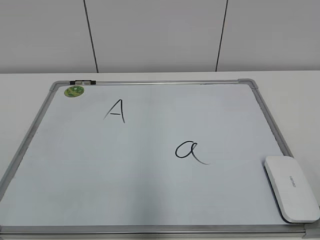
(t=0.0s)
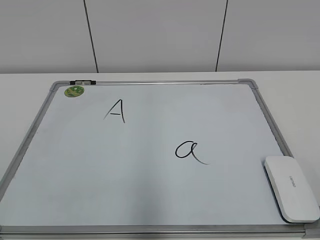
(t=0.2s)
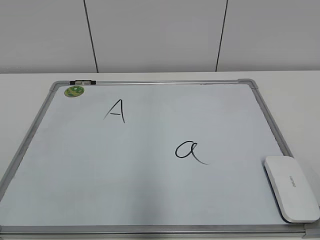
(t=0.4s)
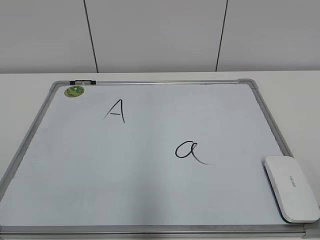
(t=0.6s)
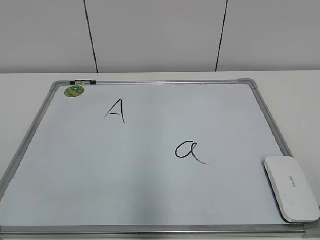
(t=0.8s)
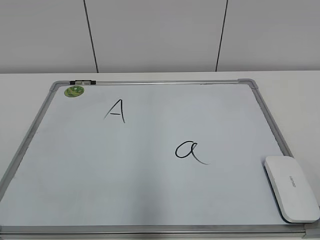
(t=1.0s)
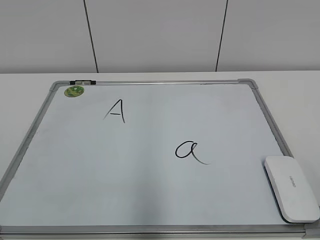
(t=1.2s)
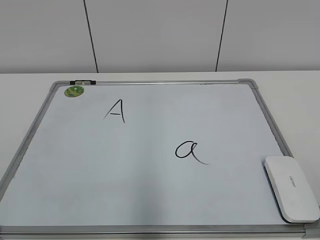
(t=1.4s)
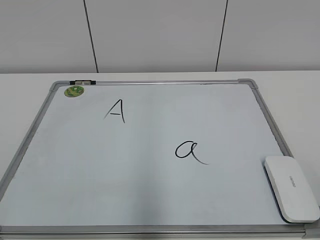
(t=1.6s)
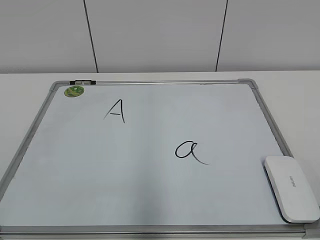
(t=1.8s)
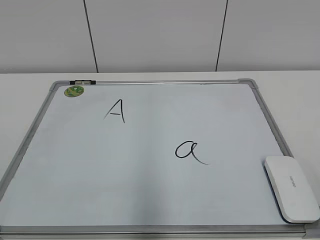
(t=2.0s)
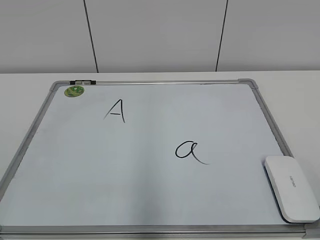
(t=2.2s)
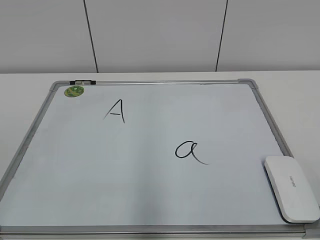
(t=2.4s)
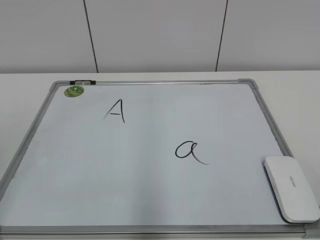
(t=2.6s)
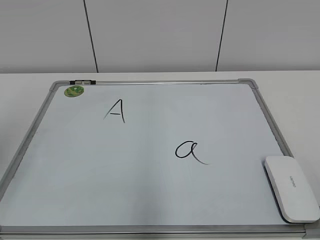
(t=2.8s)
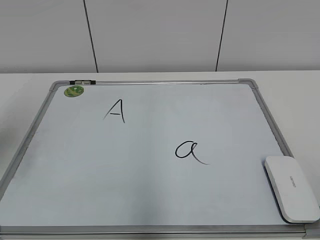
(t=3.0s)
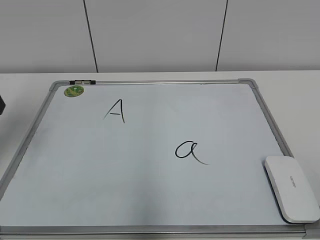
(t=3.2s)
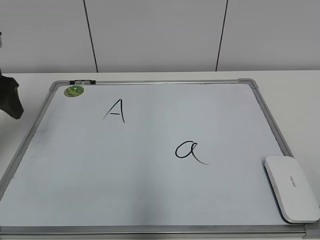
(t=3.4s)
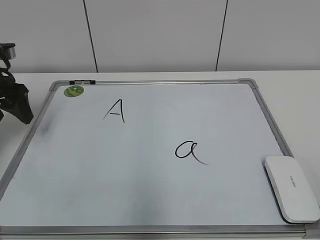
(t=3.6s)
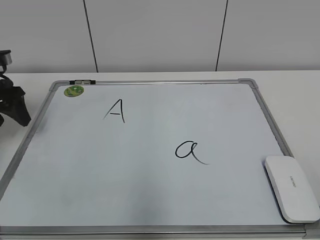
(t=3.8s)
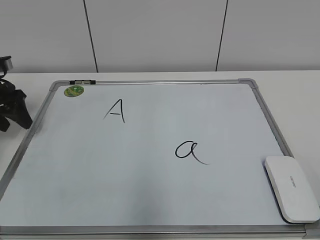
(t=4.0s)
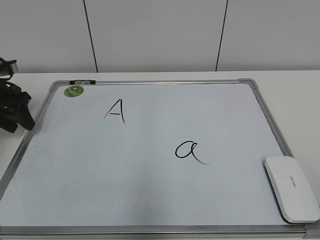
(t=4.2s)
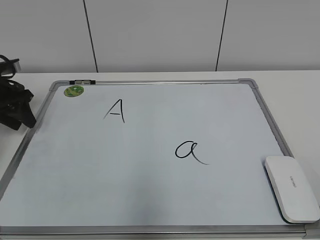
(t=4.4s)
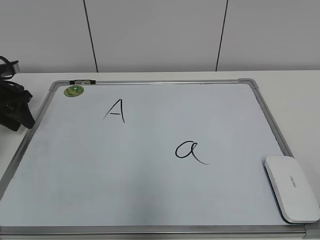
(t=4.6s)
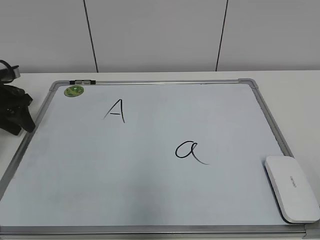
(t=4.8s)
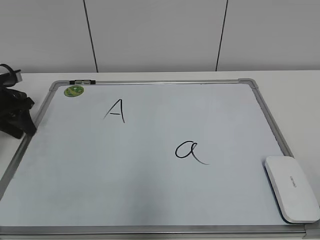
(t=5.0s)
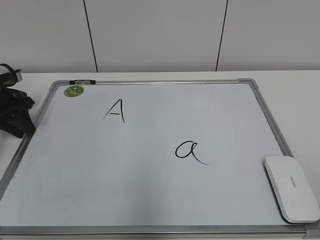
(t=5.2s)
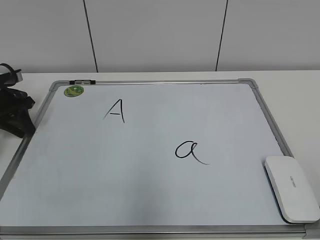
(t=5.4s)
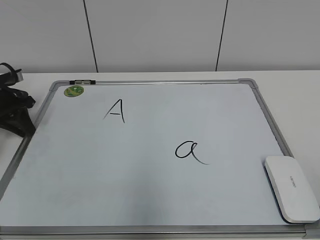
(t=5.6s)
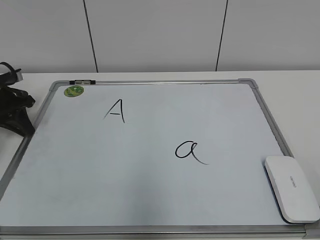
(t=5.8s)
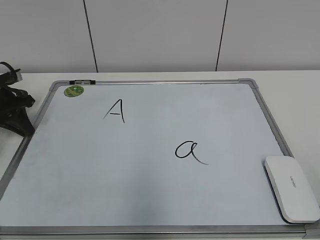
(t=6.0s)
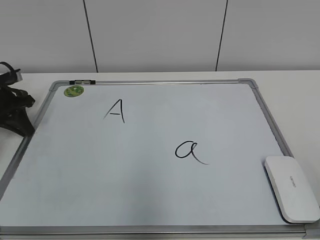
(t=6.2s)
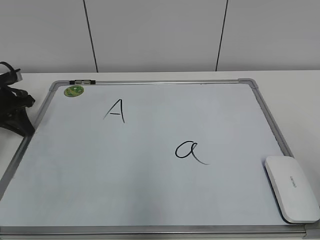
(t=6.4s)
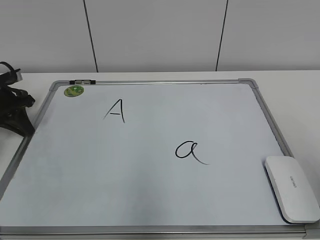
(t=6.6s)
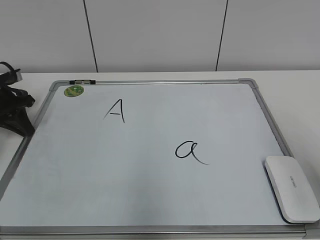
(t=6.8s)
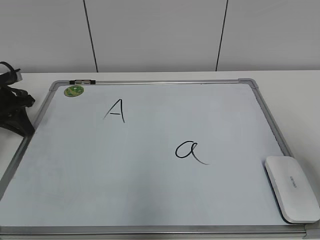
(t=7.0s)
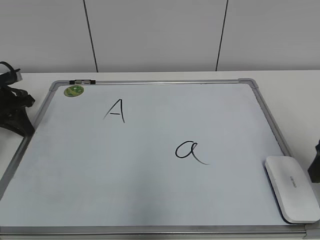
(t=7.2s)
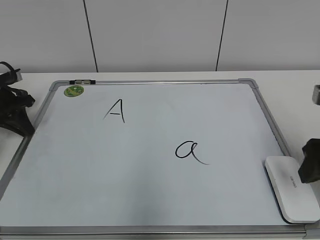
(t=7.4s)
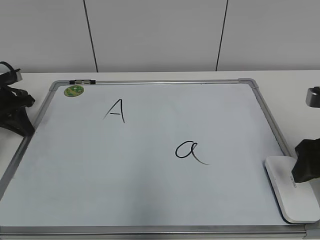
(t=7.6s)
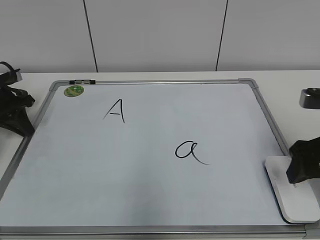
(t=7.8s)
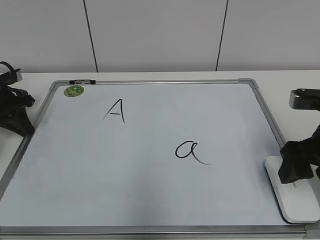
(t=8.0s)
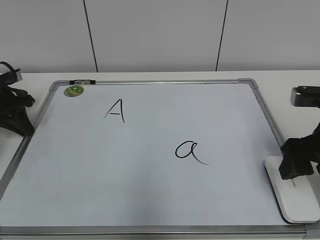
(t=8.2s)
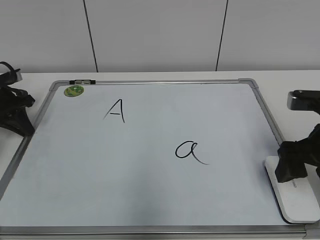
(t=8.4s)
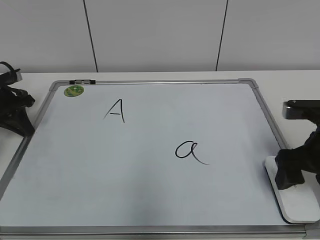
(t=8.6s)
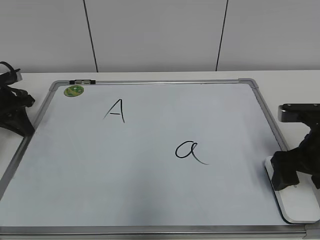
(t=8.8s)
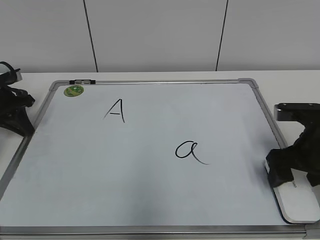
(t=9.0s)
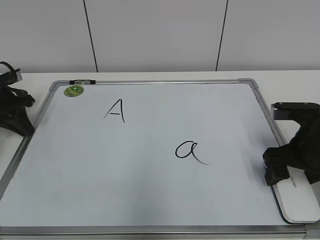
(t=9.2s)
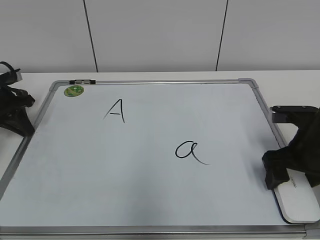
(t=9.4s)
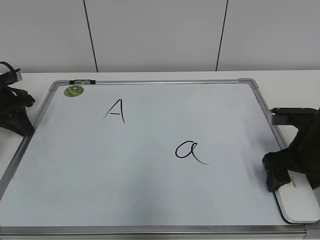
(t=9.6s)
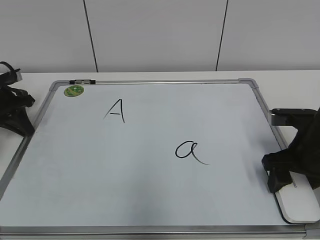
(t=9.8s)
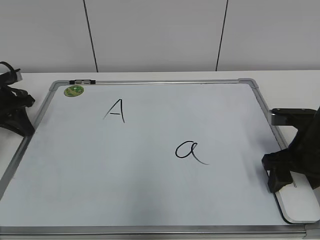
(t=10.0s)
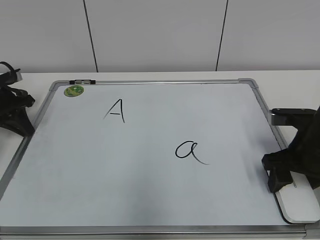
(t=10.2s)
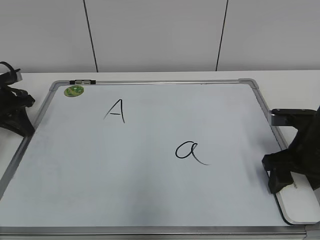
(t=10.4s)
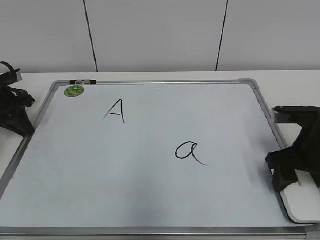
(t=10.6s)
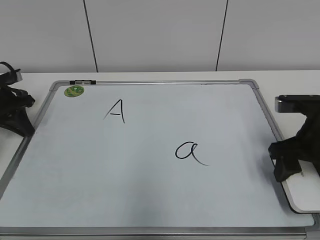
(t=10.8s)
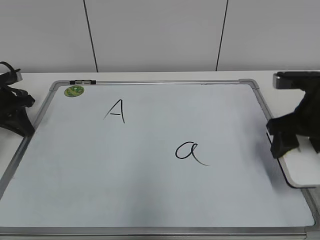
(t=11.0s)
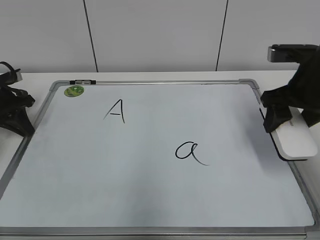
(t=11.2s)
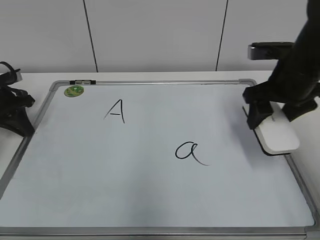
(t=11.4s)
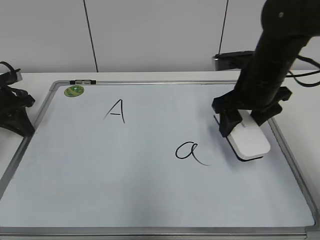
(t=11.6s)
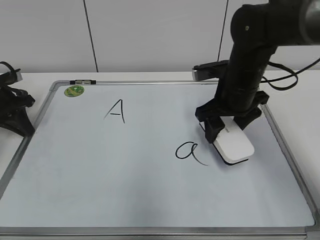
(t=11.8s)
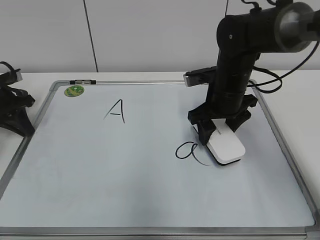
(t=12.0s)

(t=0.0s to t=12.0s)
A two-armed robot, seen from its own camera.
Task of the whole recording: pick up the eraser on the blackboard and erase the letter "a".
Step, t=0.0s - t=6.0s: Hold the drawing board steady with your left hand.
Step, t=6.2s - t=10.2s: Grab the eraser with your right hand.
t=1.6s - t=3.0s: The left gripper moves forward, some 25 cm, and opens its fingers.
t=3.0s - t=4.4s: The left gripper travels forward and downward by roughly 25 cm, and closes.
t=4.4s - t=6.0s: The left gripper closes.
t=6.0s - t=7.6s: The right gripper goes approximately 25 cm forward.
t=7.6s - t=9.0s: The right gripper changes place by about 5 cm, and opens up.
t=9.0s - t=10.4s: The right gripper closes up.
t=10.4s - t=12.0s: The right gripper is displaced to the left and forward by approximately 15 cm.

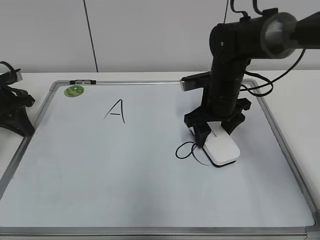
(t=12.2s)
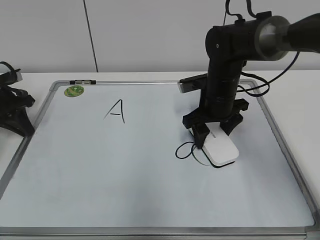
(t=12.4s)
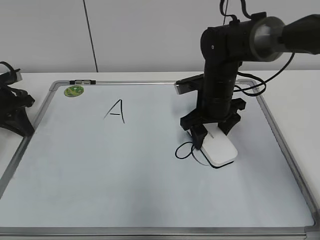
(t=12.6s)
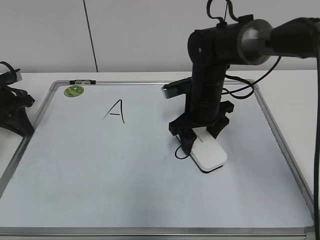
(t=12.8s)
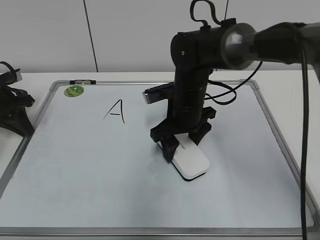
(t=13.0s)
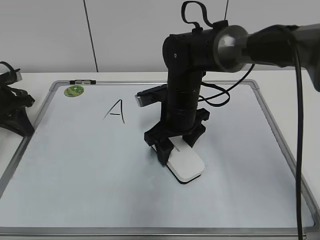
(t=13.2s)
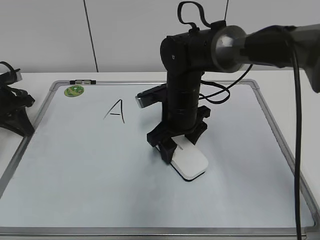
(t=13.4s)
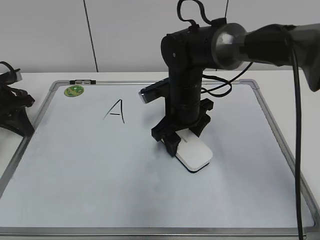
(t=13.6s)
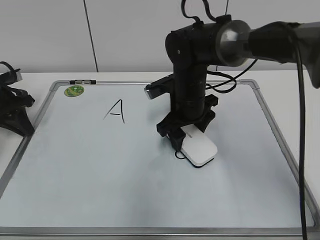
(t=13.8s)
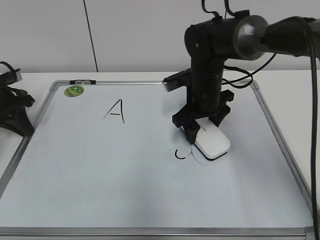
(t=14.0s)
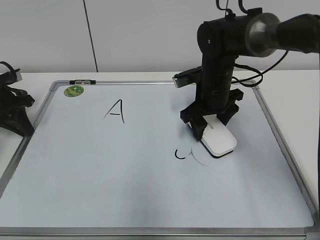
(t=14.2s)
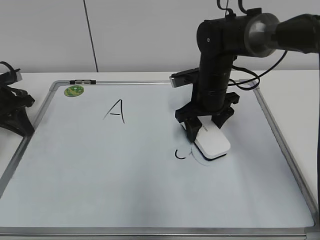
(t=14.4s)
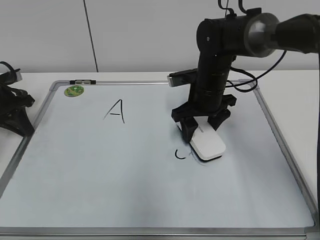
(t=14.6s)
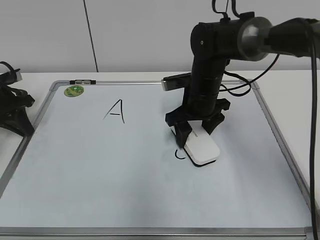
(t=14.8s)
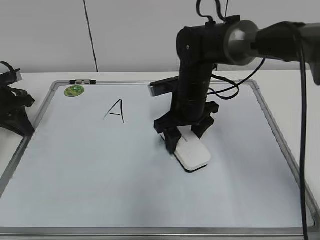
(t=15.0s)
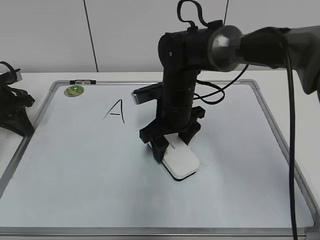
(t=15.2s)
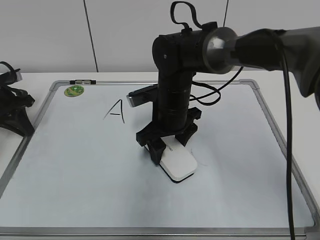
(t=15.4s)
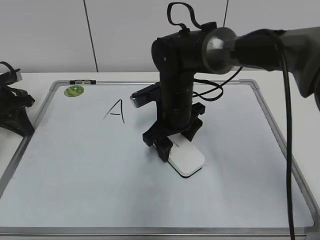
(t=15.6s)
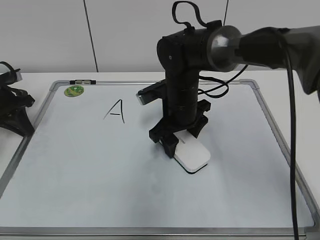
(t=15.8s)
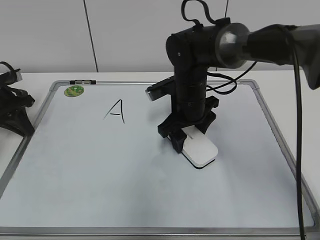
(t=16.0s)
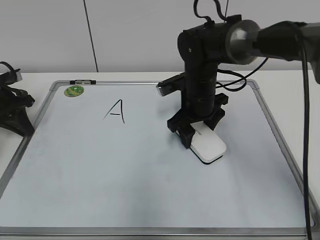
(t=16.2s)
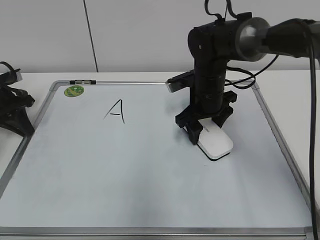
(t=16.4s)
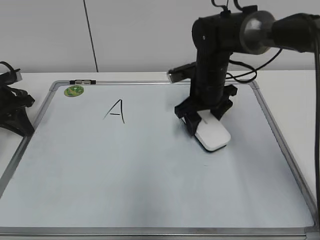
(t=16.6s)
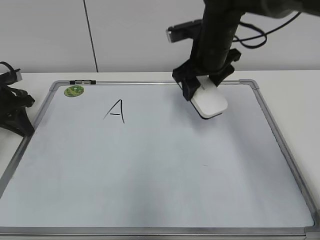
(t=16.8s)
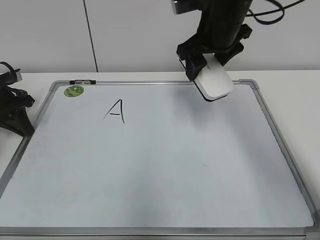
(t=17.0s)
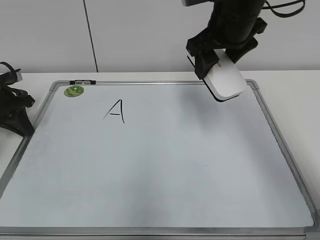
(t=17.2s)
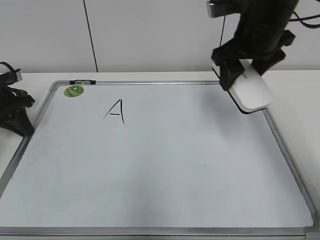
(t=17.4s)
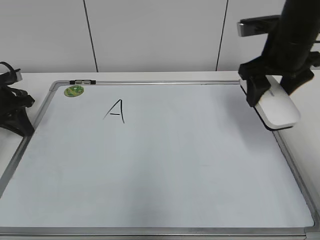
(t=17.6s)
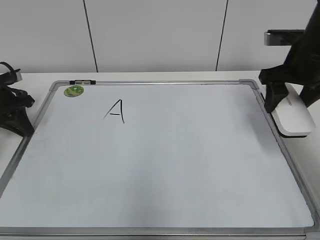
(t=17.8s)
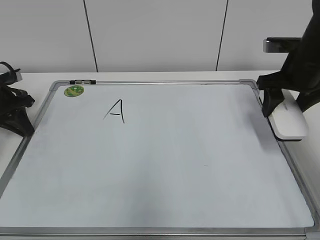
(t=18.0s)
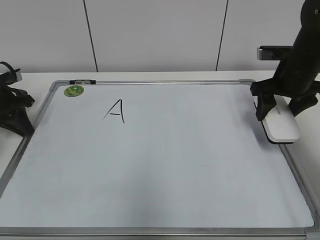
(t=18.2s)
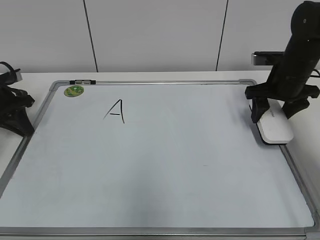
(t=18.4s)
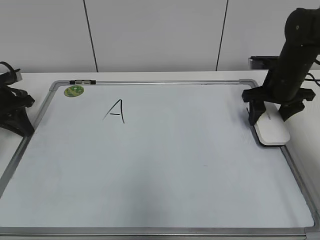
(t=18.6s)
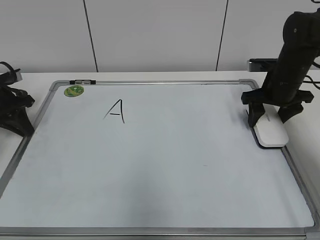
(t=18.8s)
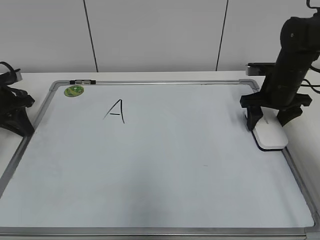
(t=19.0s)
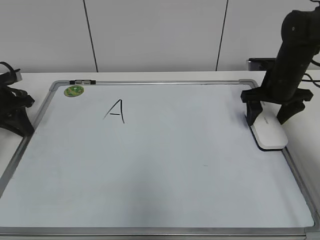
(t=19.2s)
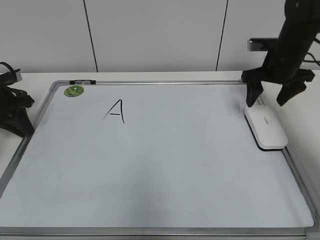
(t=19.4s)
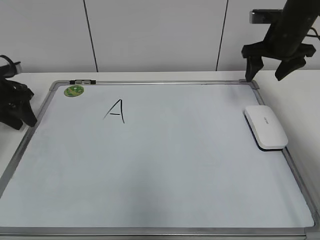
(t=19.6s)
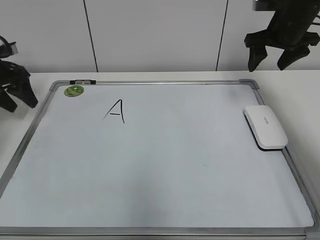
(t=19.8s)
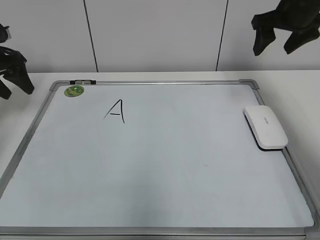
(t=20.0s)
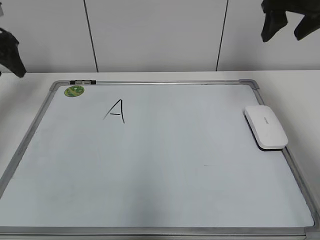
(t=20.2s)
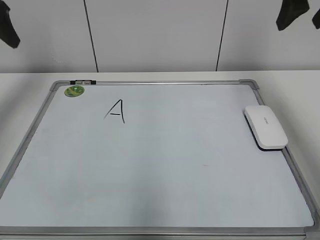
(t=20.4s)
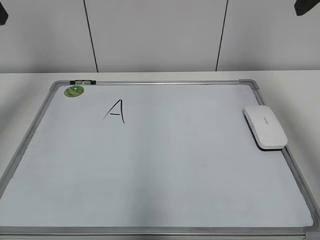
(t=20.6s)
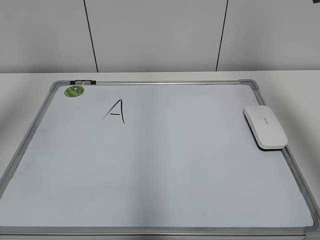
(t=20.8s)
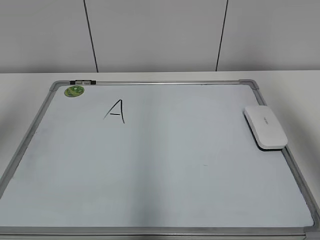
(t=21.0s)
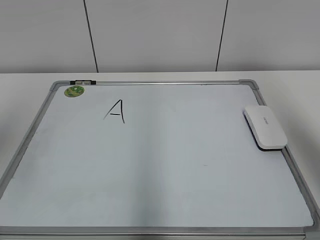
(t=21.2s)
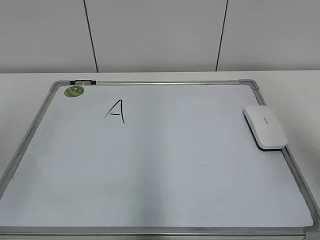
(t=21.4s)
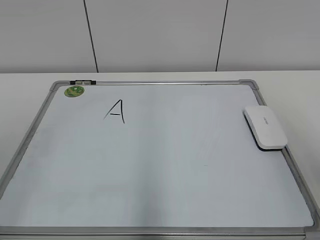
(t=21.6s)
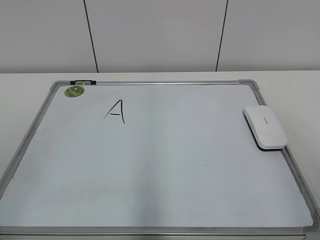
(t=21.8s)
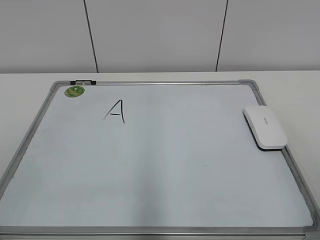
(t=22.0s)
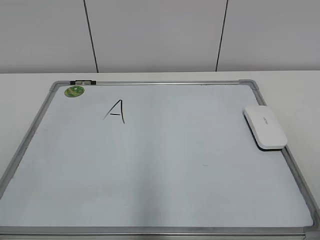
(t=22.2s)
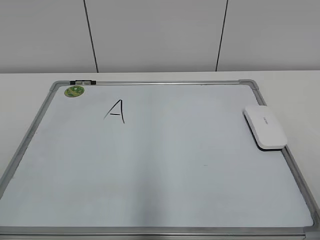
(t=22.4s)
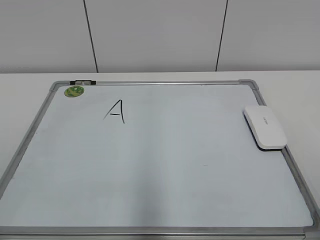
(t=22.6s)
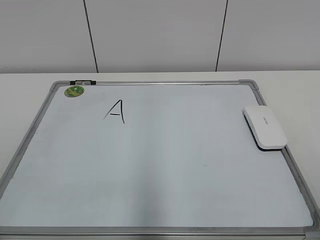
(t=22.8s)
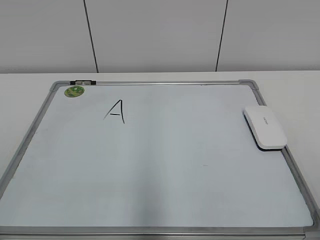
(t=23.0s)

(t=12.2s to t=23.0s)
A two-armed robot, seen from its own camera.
Task of the whole recording: pick up the eraser on the blackboard and erase the letter "a".
Step, t=12.2s - t=16.2s: Erase the letter a with your right hand.
Step, t=16.4s - t=19.0s: Put down the eraser with your right hand.
t=12.2s - t=13.8s: The right gripper travels to the left by approximately 5 cm.
t=13.8s - t=15.2s: The grippers make only small movements.
t=15.2s - t=16.8s: The right gripper heads upward and to the right, covering about 10 cm.
t=16.8s - t=18.4s: The right gripper moves to the right and downward, about 15 cm.
t=18.4s - t=20.0s: The right gripper is displaced upward by about 10 cm, and opens. The left gripper goes roughly 10 cm upward, and opens its fingers.
t=20.0s - t=21.4s: The right gripper travels backward by roughly 30 cm, while the left gripper is displaced backward and upward by some 35 cm.
t=21.4s - t=23.0s: The right gripper moves backward and downward, about 20 cm.
